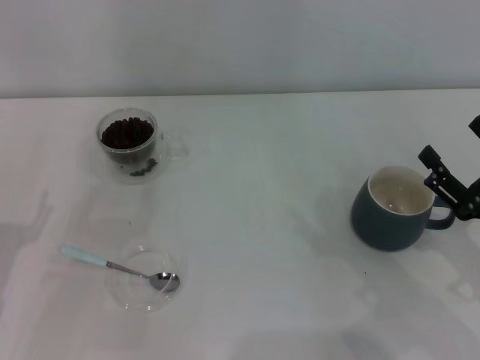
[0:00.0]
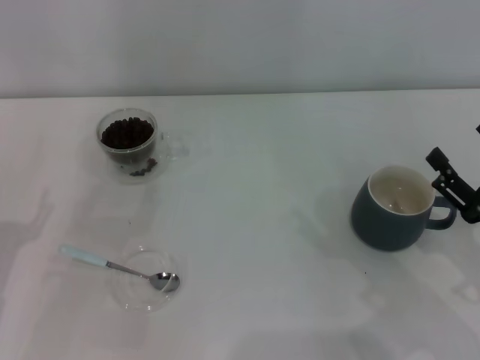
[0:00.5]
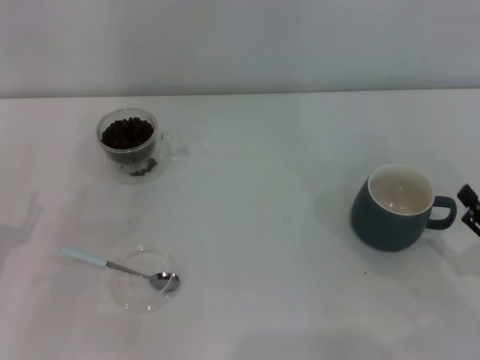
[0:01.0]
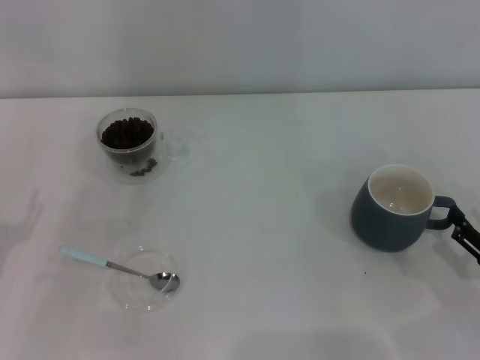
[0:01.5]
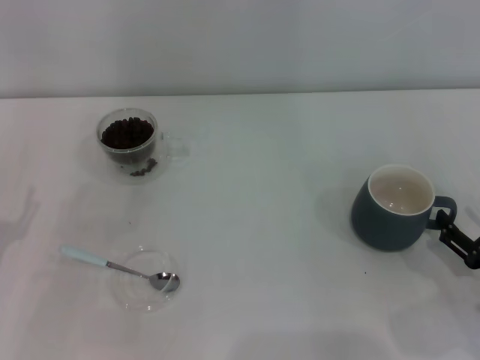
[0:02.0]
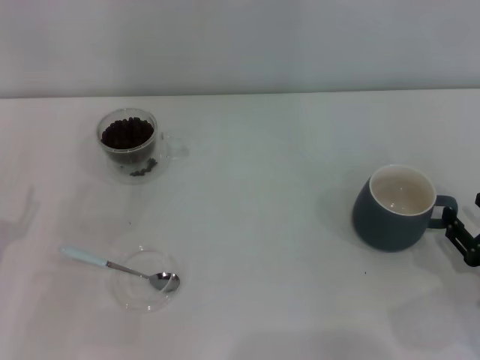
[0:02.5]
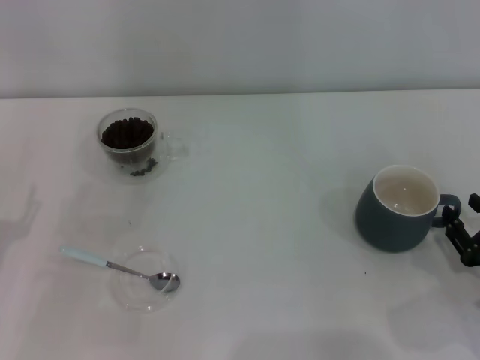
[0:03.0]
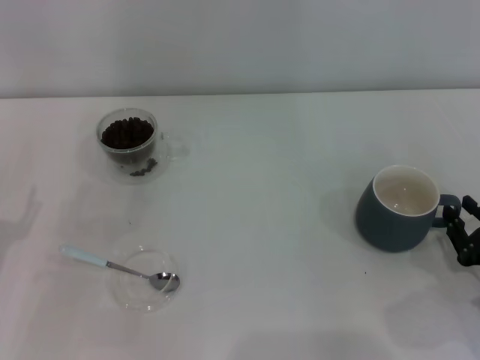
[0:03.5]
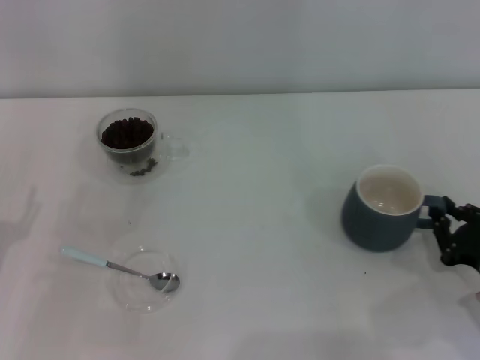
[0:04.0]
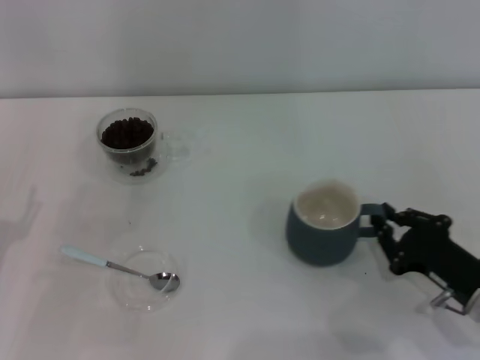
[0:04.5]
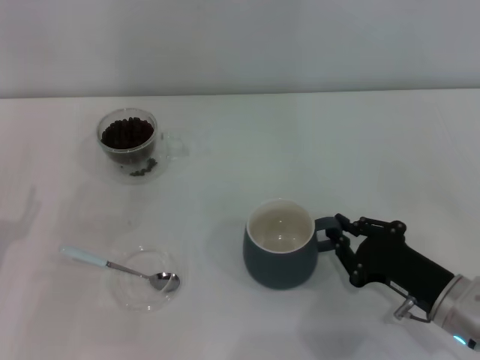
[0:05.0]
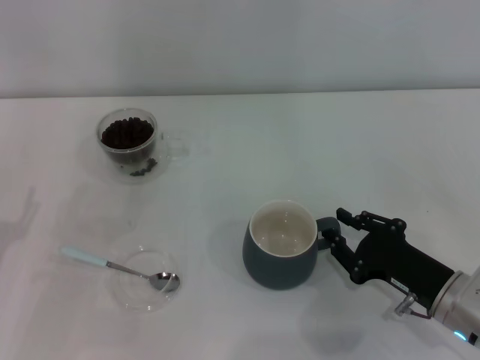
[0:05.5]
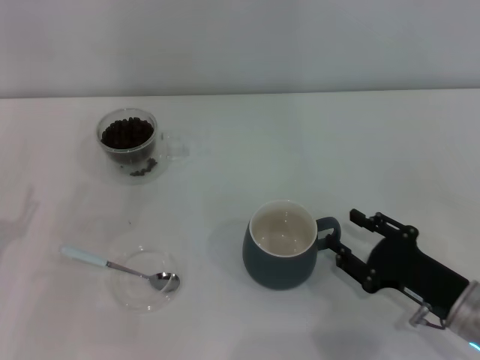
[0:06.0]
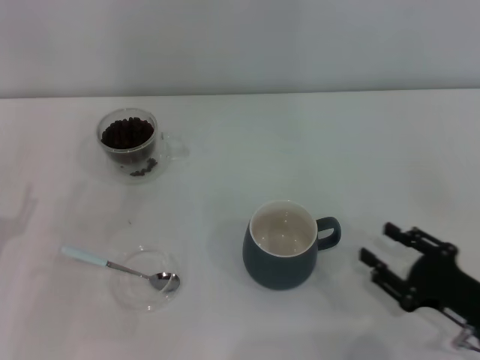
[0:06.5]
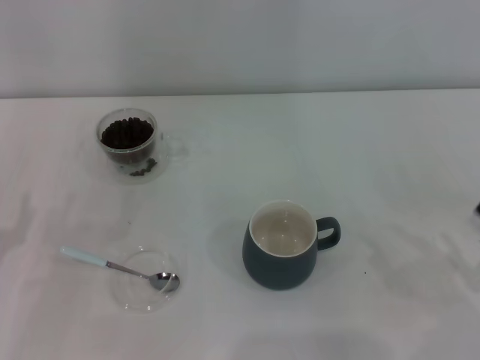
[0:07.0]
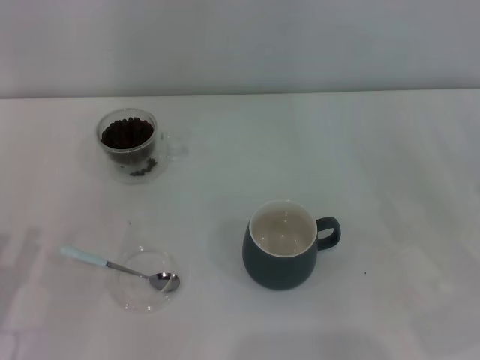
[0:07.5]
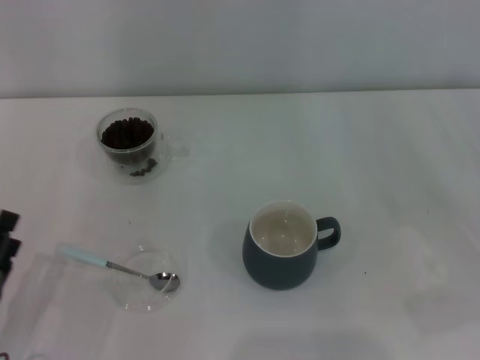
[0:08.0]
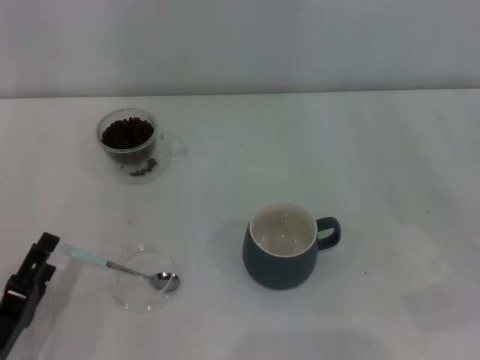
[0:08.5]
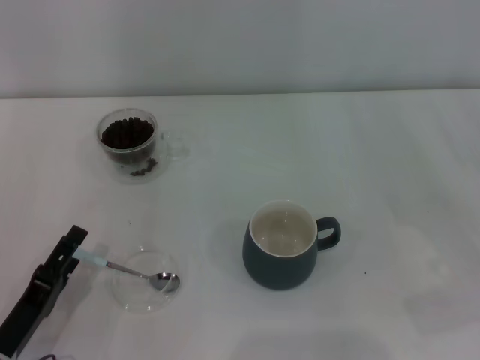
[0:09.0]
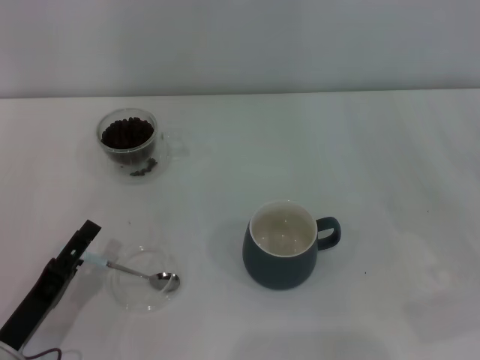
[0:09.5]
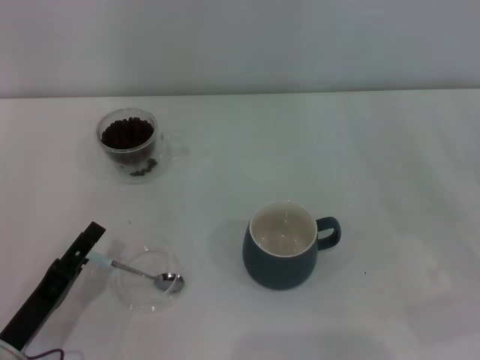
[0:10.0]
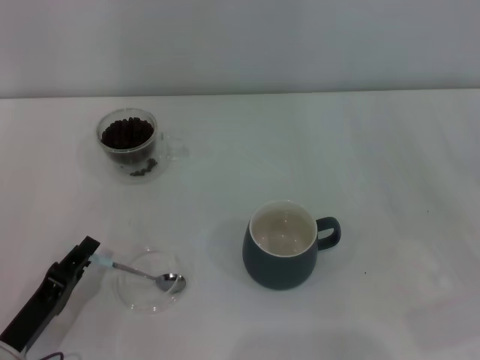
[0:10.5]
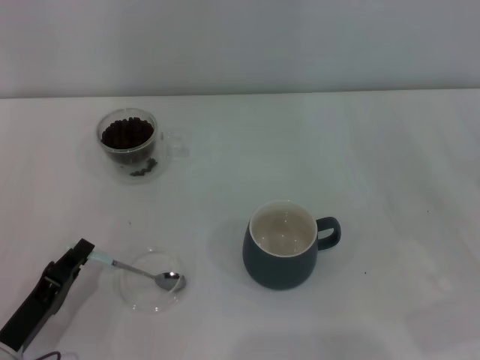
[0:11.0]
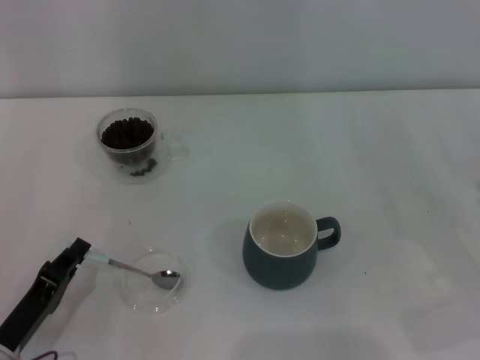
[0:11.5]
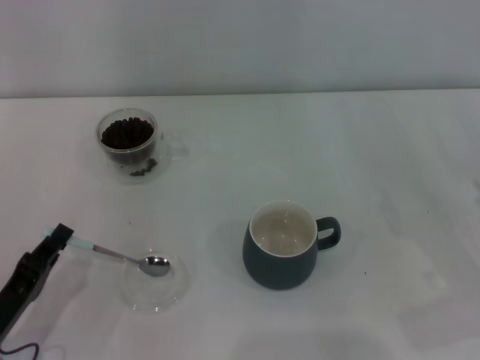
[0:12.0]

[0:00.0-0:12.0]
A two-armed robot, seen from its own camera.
Task of the whole recording: Use a blue spoon to take out the coffee beans from the glass and pour them into the gray cup.
0:00.0 to 0:02.0: The right gripper ends up approximately 5 cm from where it was.
0:02.0 to 0:04.0: The right gripper closes.
0:04.0 to 0:06.0: The right gripper heads to the left, covering approximately 5 cm, and opens up.
0:06.0 to 0:08.0: The left gripper shifts about 5 cm backward. Meanwhile the right gripper is displaced to the right and upward by some 15 cm.
0:08.0 to 0:10.0: The grippers make only small movements.
0:10.0 to 0:12.0: The left gripper closes up.

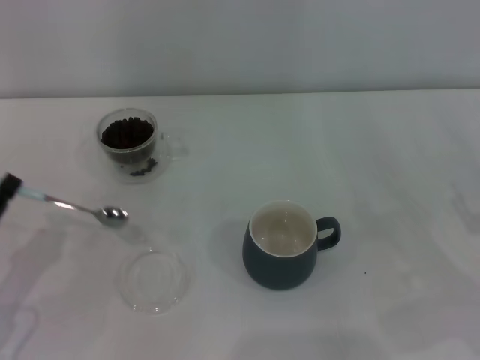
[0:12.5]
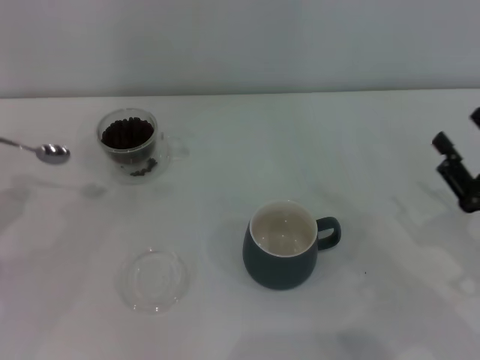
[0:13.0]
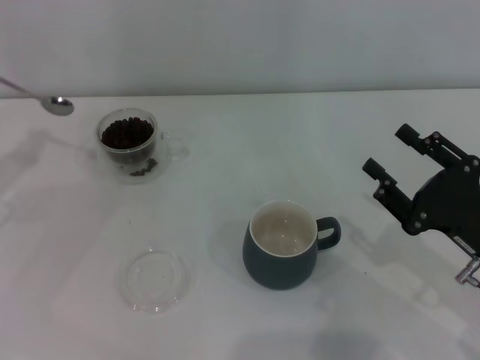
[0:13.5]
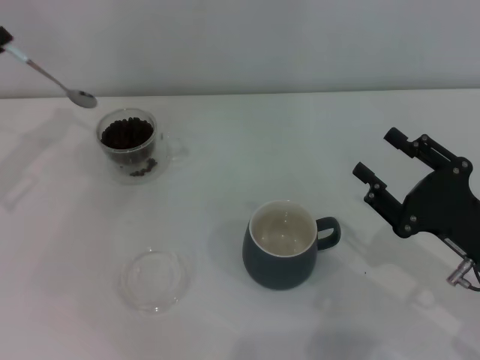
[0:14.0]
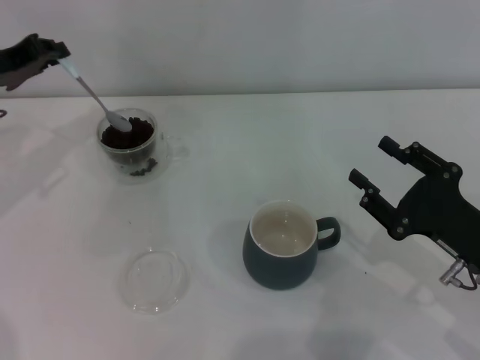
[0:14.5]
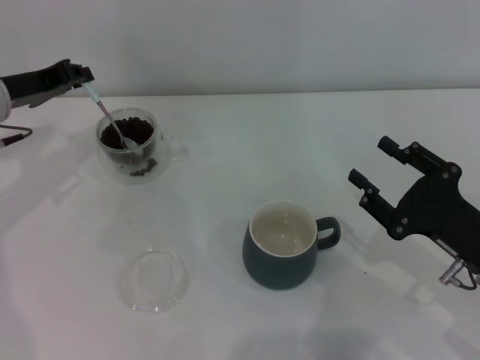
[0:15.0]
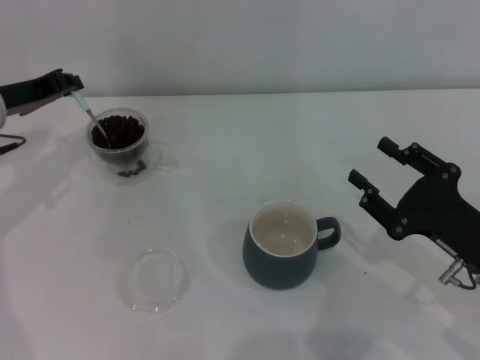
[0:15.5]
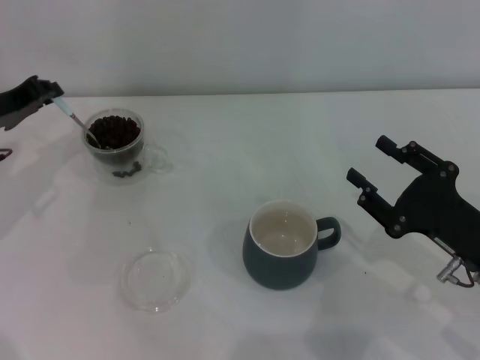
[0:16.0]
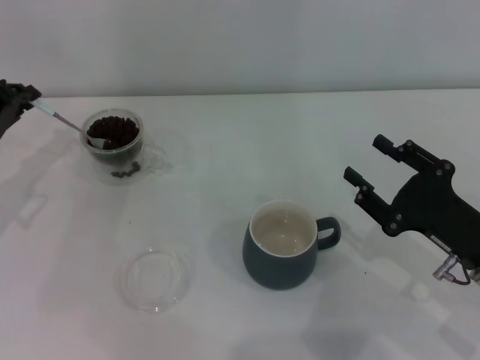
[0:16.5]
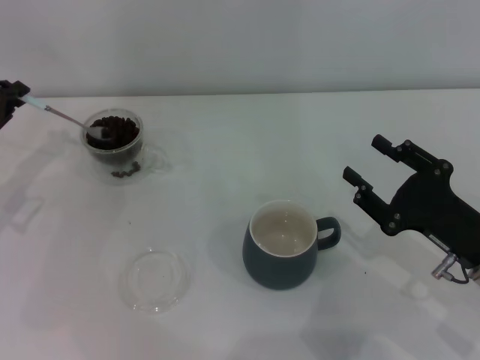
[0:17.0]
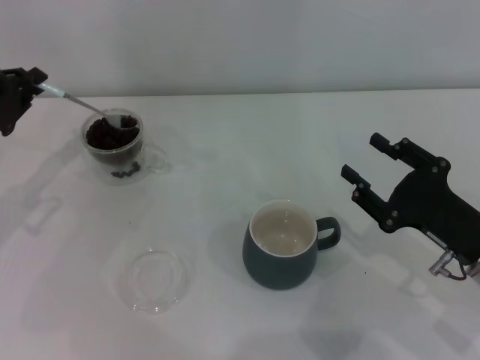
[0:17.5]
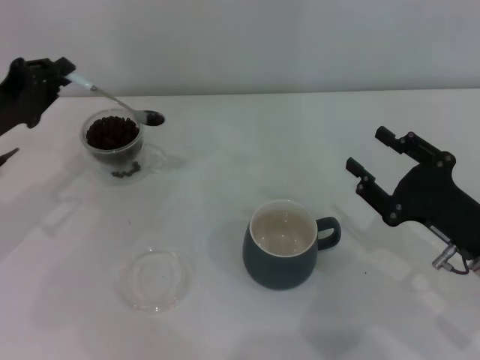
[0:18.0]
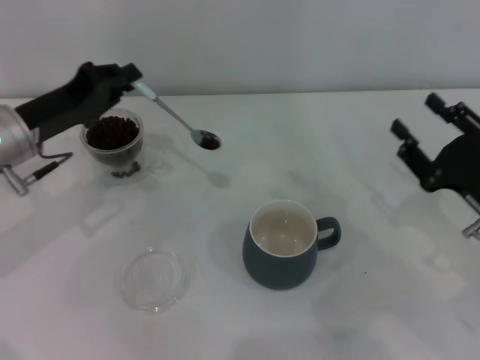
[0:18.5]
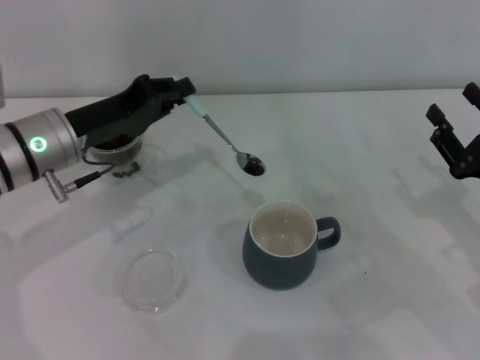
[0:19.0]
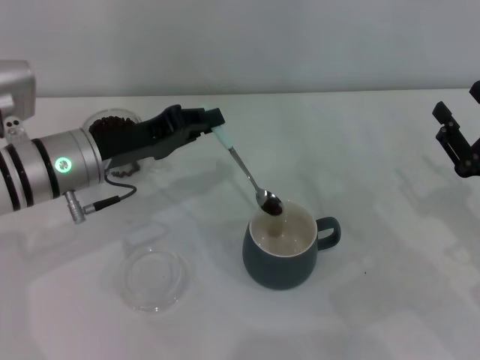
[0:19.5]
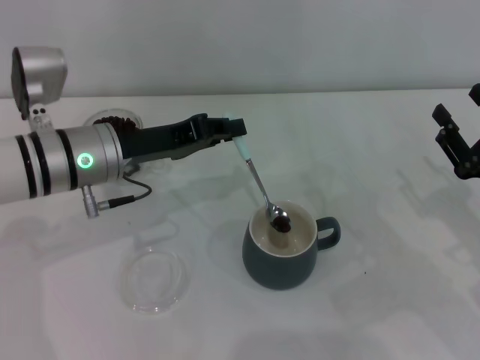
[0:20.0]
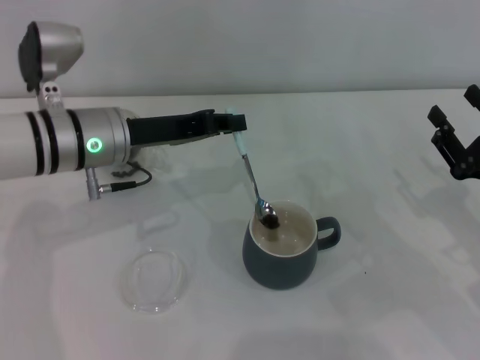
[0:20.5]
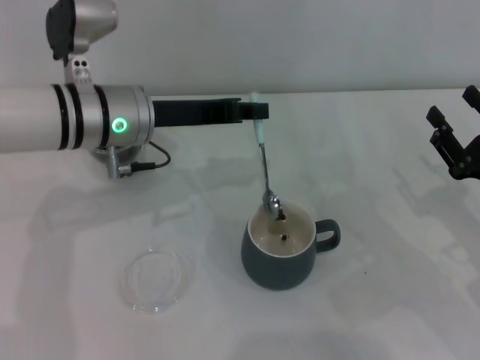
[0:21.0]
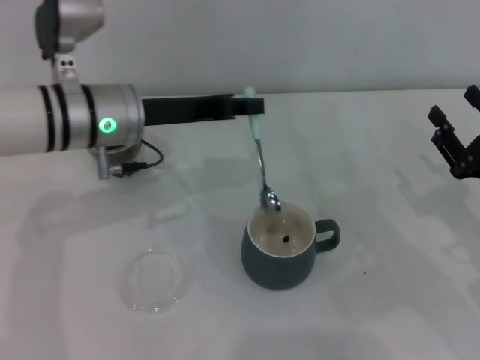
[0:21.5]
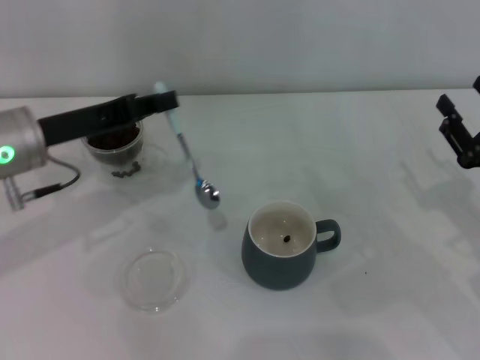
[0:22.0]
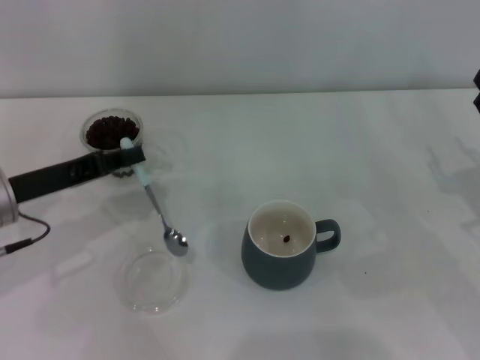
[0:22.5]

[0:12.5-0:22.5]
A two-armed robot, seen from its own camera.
Task of the whole recording: Use a blue spoon to take out the coffee beans from the glass and pour them into the gray cup.
Step, 0:12.5 to 0:21.5: Scoop a spoonful of beans into the cup with the right gripper.
0:12.5 to 0:14.5: The left gripper is displaced forward and upward by about 25 cm, while the right gripper moves to the left, approximately 10 cm.
0:14.5 to 0:16.5: The left gripper shifts some 5 cm downward.
0:16.5 to 0:18.5: The left gripper shifts approximately 5 cm to the right.
0:18.5 to 0:20.5: The left gripper heads to the right, covering roughly 10 cm.
0:20.5 to 0:22.5: The left gripper moves to the left and backward, some 10 cm.

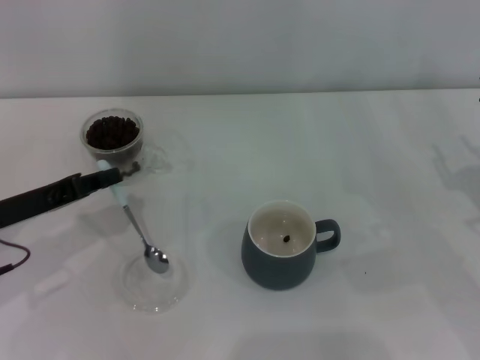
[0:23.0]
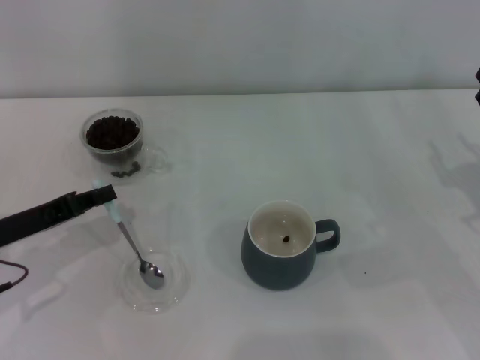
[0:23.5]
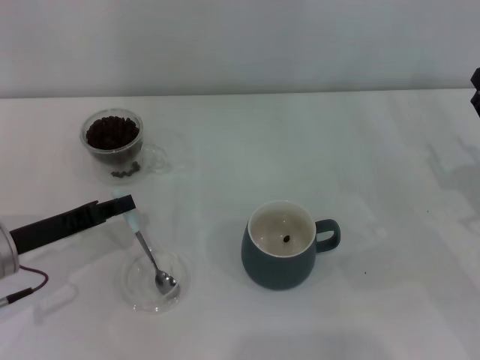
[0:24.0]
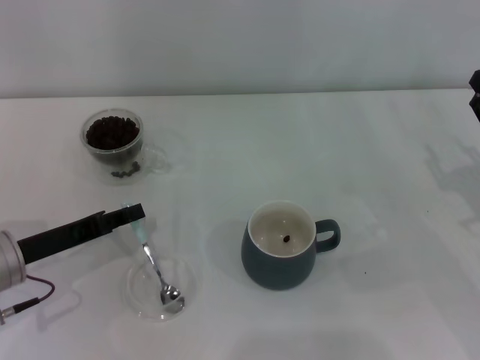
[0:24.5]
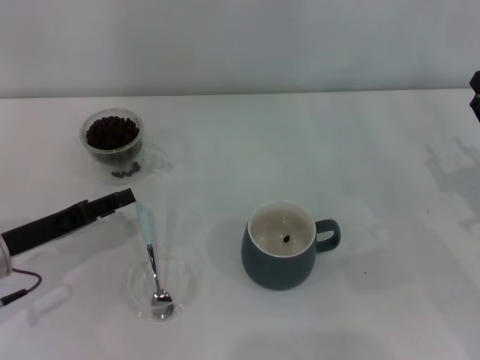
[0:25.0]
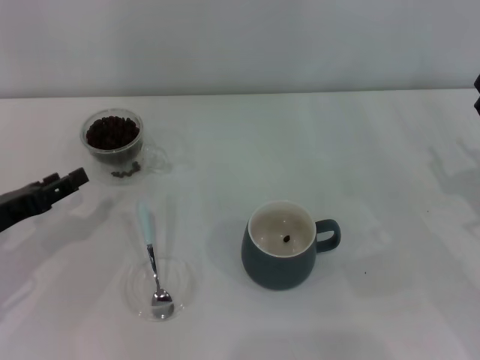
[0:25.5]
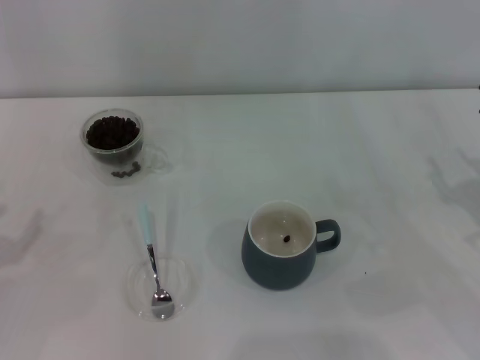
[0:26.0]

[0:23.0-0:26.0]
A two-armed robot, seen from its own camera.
Task of the whole recording: Use a blue spoon to take out the coffee beans from the glass and pour them into the gray cup.
Step, 0:23.0 to 0:25.0: Place the spoon back in its original place with the right gripper.
0:23.0 to 0:24.5: The grippers make only small movements.
0:24.5 to 0:26.0: The left gripper heads to the left and backward, covering about 10 cm, and opens.
